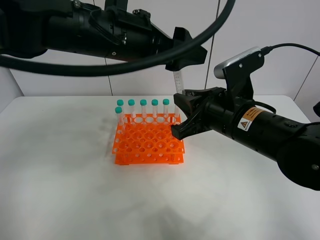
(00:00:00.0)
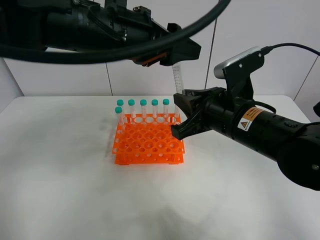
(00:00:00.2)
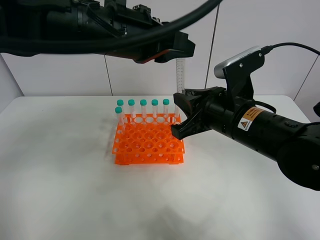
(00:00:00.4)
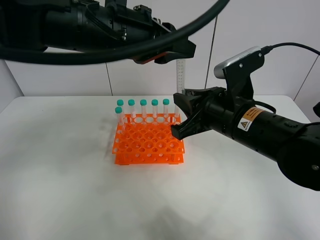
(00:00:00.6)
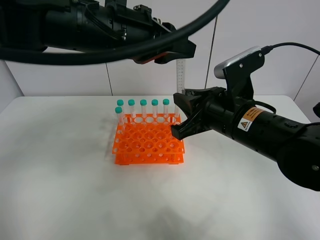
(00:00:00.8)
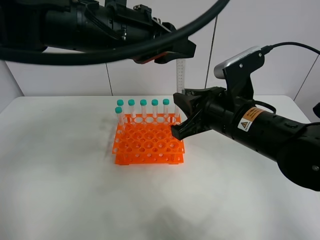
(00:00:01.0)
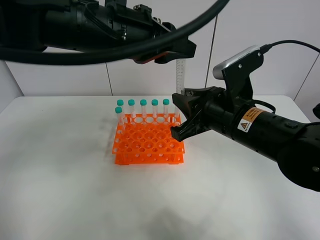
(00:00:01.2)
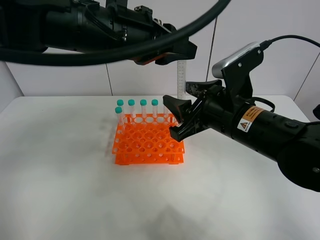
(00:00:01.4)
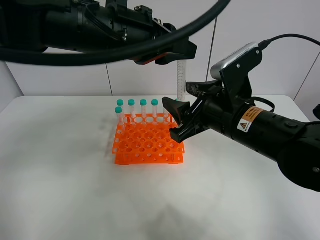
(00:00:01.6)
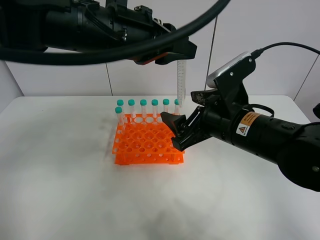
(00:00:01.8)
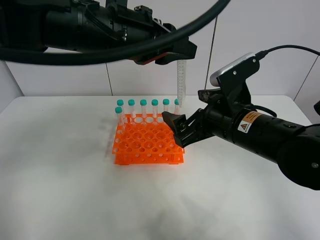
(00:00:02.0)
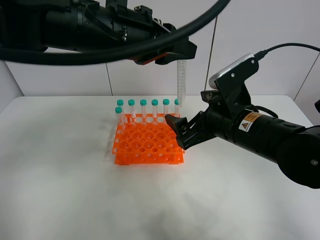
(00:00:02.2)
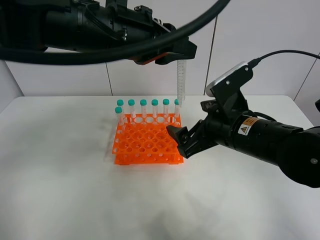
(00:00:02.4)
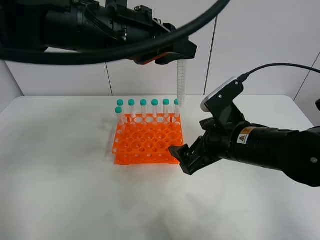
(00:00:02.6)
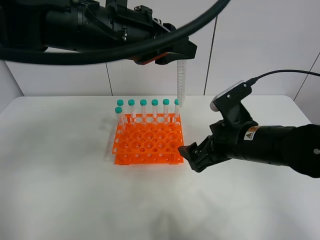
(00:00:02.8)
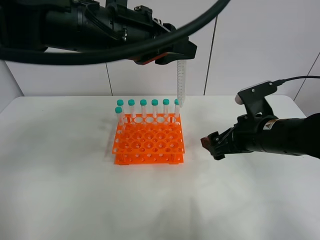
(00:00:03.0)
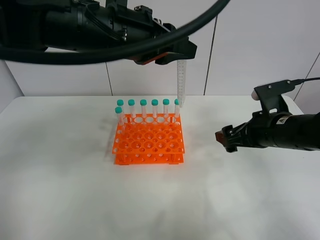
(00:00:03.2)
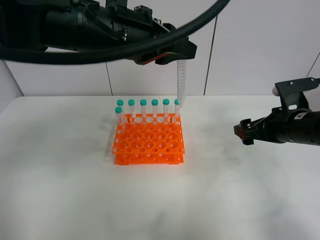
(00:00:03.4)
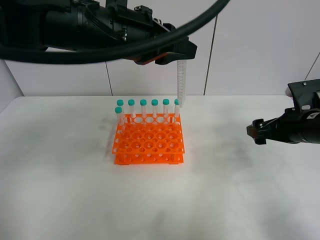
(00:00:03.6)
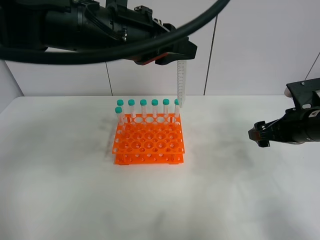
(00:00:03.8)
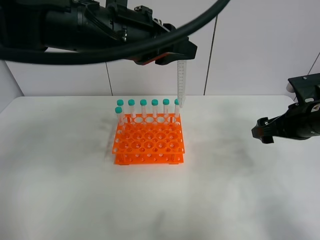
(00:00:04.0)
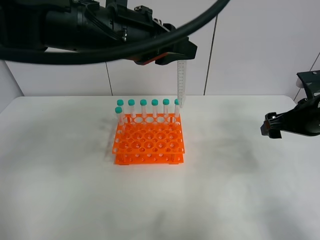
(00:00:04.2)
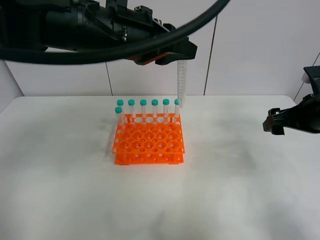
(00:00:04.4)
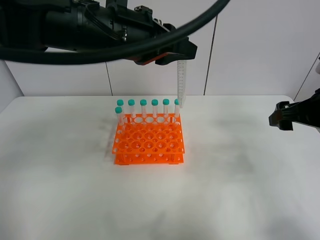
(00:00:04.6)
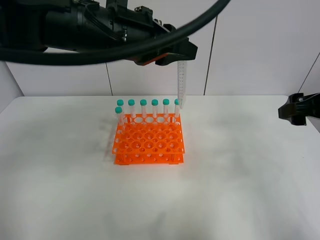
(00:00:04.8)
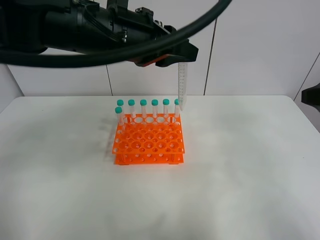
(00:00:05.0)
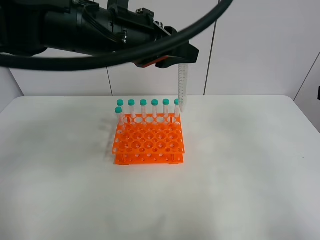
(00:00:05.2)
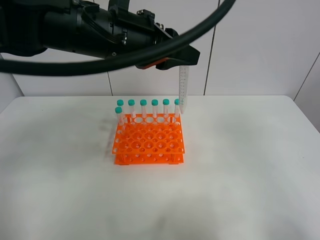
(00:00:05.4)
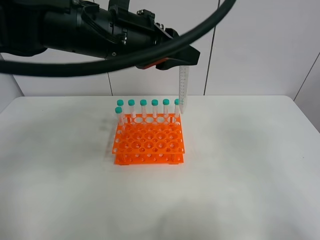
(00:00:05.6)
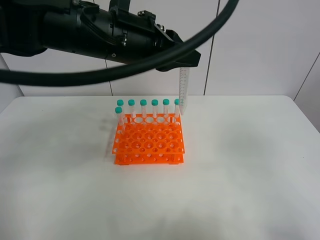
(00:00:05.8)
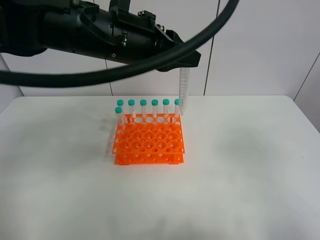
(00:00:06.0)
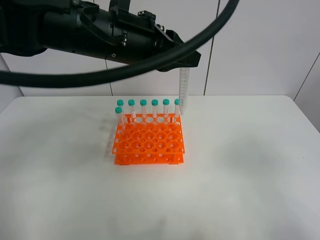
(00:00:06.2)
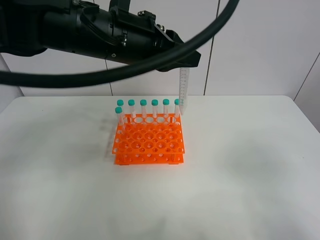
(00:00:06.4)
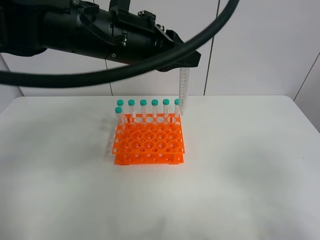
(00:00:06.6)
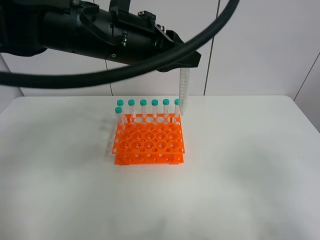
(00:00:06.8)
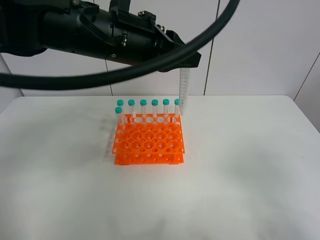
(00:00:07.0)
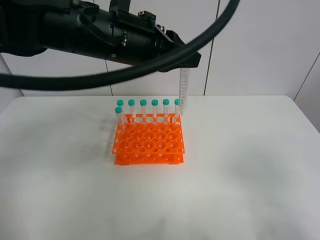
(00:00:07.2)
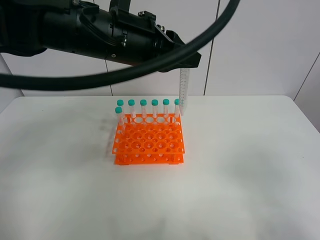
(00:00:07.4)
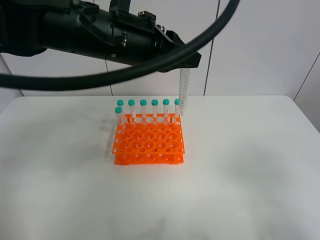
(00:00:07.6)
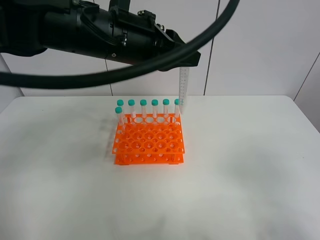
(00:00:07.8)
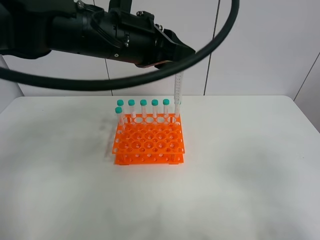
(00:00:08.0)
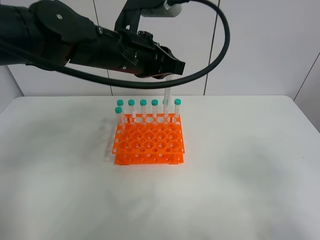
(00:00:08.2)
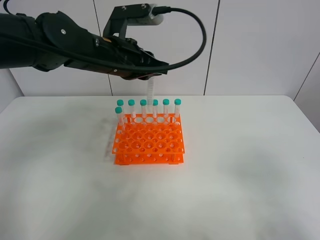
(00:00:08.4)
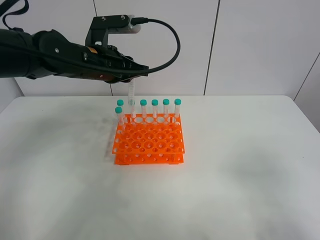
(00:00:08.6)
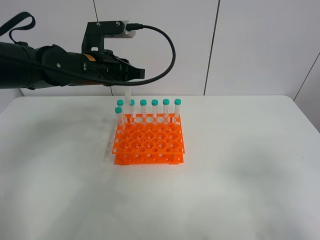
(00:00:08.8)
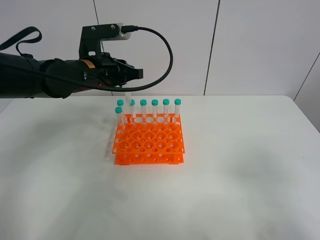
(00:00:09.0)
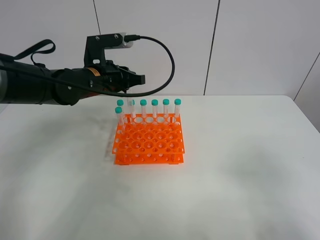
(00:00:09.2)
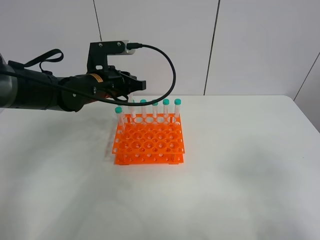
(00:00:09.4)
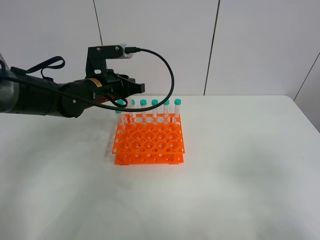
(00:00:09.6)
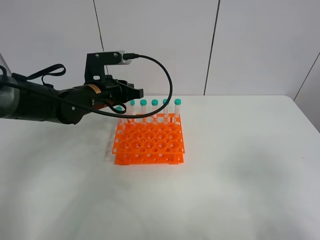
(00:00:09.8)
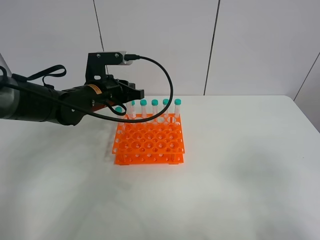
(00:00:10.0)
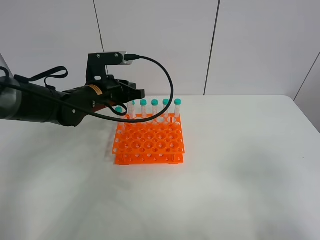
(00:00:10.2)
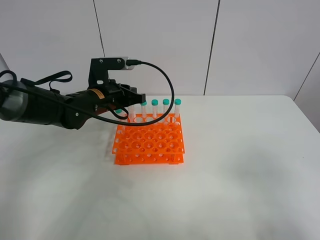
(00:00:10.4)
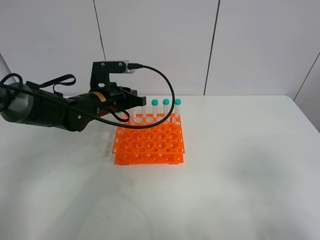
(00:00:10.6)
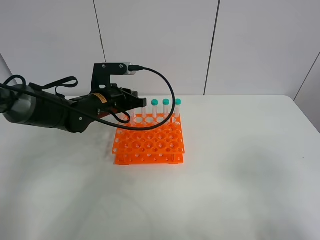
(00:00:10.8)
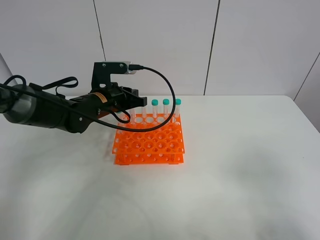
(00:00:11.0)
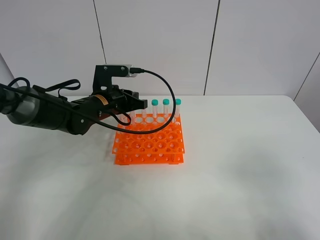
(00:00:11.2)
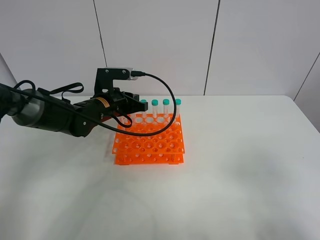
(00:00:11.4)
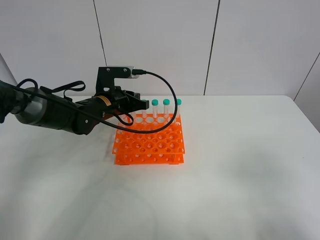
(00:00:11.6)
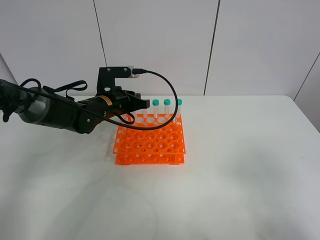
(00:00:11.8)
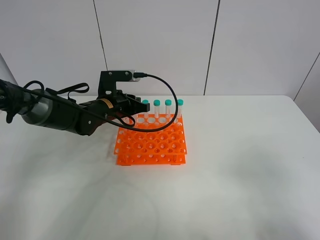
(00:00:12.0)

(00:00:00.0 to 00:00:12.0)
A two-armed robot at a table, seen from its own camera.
Task of the whole recording: Put the test tube on the table back onto the test tube rack.
00:00:00.0 - 00:00:01.6: The left gripper closes up, while the right gripper opens up.
00:00:01.6 - 00:00:03.0: The right gripper is displaced to the right by about 10 cm, and opens.
00:00:03.0 - 00:00:04.4: The right gripper heads to the right, covering some 10 cm.
00:00:04.4 - 00:00:06.0: The right gripper goes about 25 cm backward and upward.
00:00:06.0 - 00:00:07.6: The right gripper is displaced downward by roughly 5 cm.
00:00:07.6 - 00:00:09.0: The left gripper goes about 15 cm downward, forward and to the left.
00:00:09.0 - 00:00:10.4: The left gripper travels downward by roughly 5 cm.
00:00:10.4 - 00:00:12.0: The grippers stay close to where they were, moving slightly.

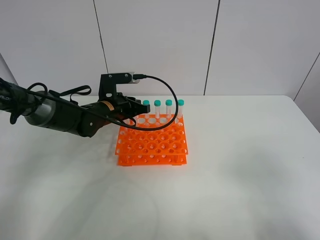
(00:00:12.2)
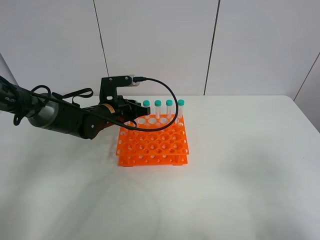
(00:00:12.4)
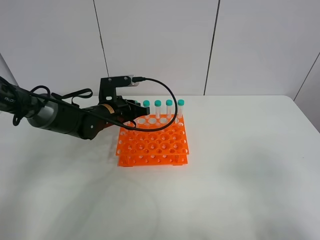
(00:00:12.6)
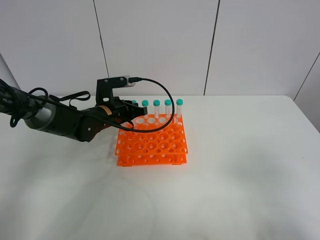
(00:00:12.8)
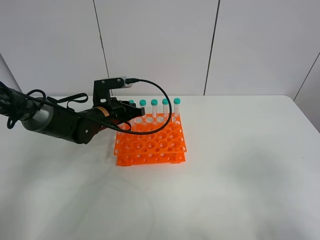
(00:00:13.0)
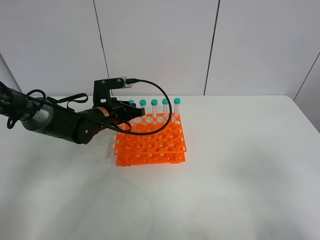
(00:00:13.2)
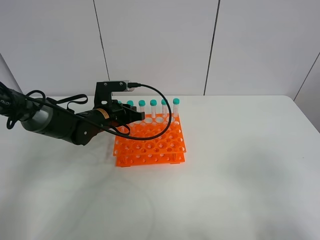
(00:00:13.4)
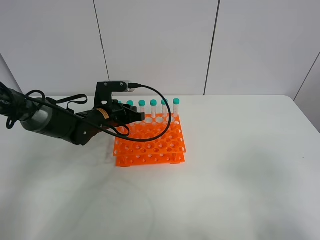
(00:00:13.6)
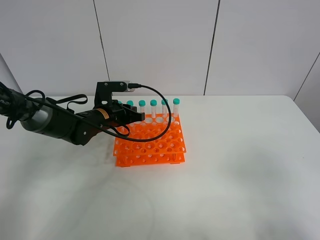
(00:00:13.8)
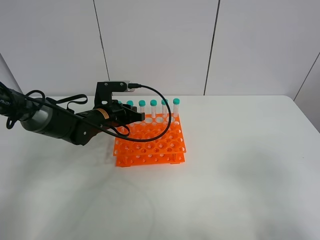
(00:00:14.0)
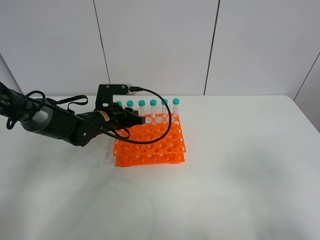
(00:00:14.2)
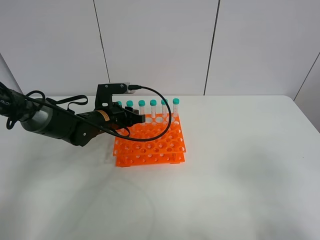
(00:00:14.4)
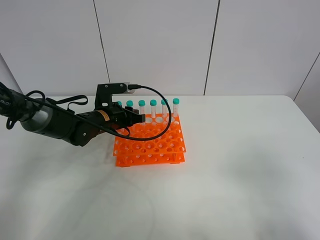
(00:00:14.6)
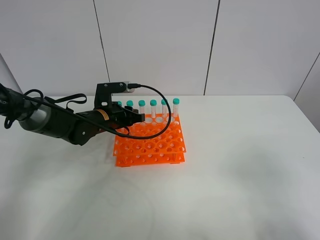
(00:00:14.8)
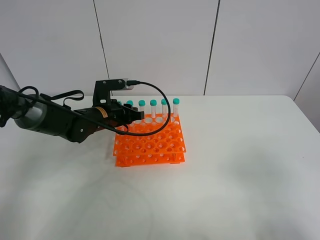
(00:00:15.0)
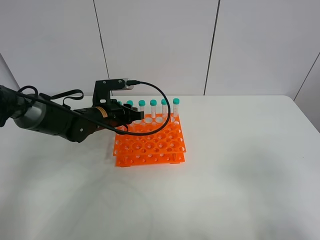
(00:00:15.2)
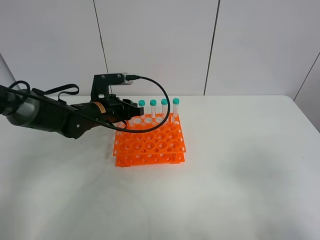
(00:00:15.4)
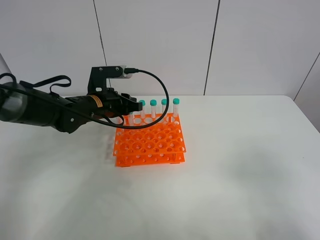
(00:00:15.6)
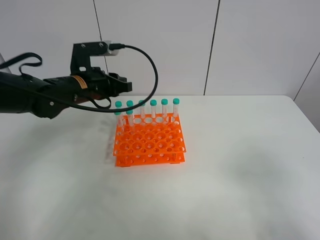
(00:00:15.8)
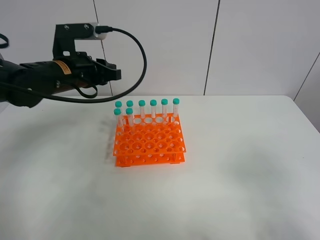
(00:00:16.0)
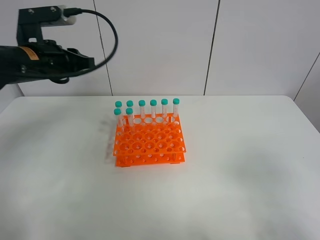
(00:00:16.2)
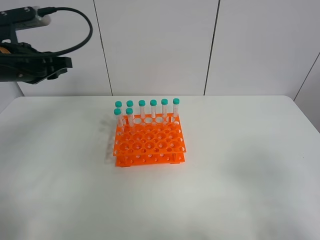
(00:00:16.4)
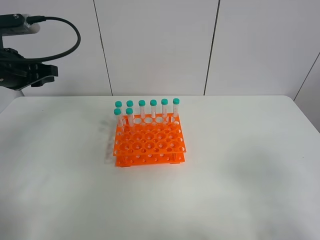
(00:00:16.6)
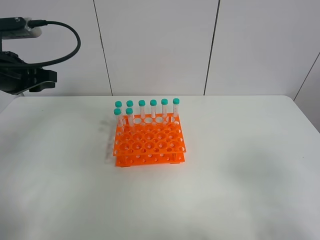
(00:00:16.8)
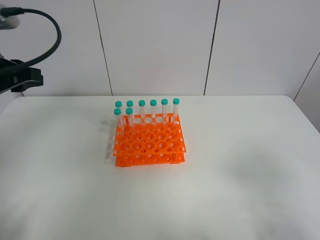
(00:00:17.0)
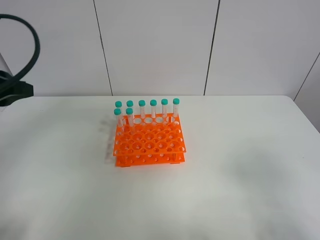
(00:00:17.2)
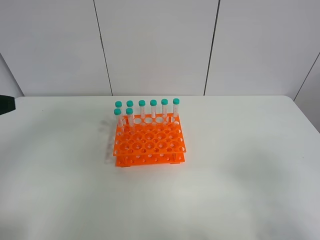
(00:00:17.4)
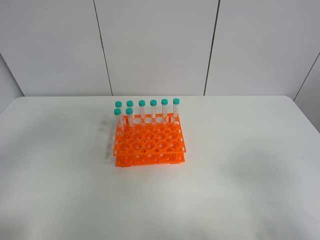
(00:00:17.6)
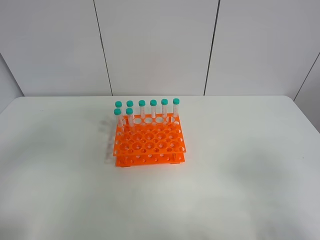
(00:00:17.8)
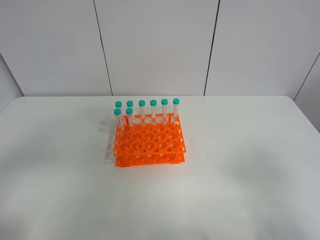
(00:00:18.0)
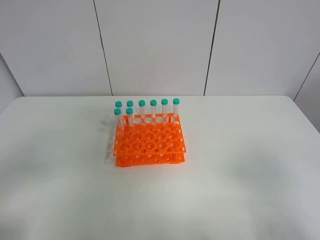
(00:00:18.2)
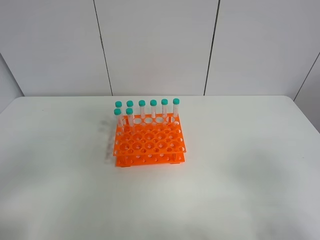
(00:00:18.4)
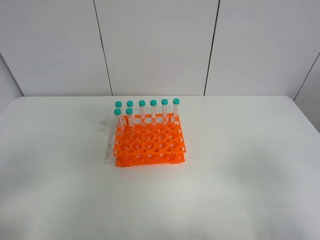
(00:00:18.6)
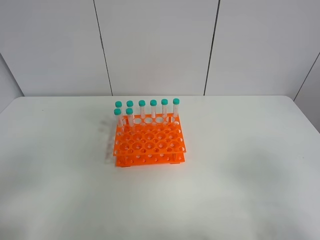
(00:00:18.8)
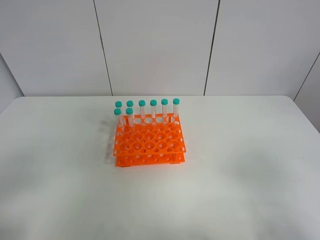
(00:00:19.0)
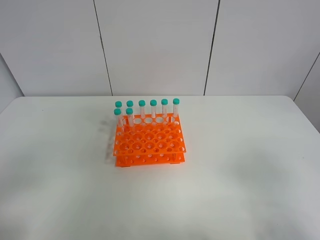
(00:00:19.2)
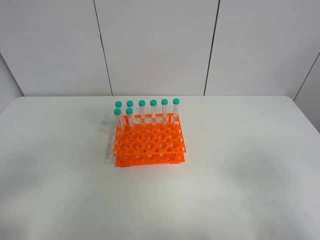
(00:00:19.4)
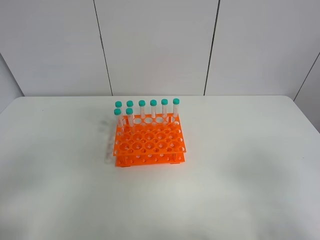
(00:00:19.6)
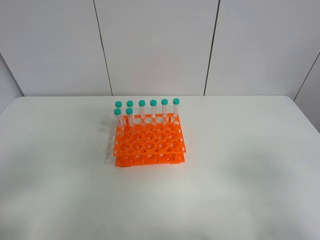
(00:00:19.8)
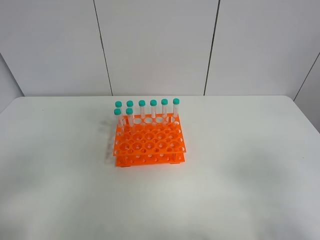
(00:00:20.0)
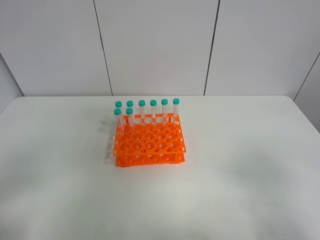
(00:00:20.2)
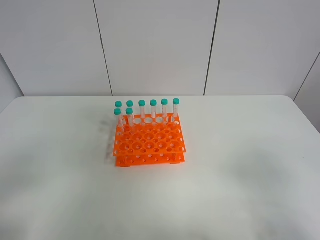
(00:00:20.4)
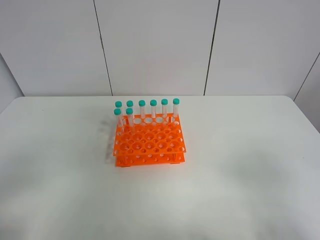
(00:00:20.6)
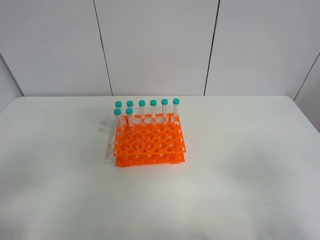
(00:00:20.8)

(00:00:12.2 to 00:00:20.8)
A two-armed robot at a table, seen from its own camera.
Task of the whole recording: Put the test tube on the table back onto the test tube rack.
Step, 00:00:12.2 - 00:00:14.4: Place the test tube on the test tube rack with the left gripper.
00:00:12.2 - 00:00:13.6: The grippers make only small movements.
00:00:13.6 - 00:00:15.0: Both grippers stay about where they are.
00:00:15.0 - 00:00:16.6: The left gripper goes roughly 25 cm upward, to the left and backward.
00:00:16.6 - 00:00:18.0: The left gripper is displaced backward by about 25 cm.
00:00:19.4 - 00:00:20.8: Both grippers stay about where they are.
